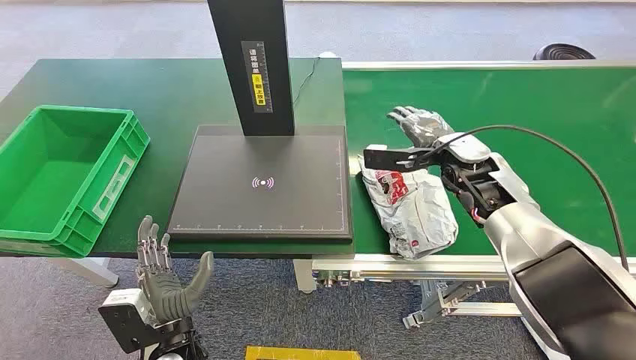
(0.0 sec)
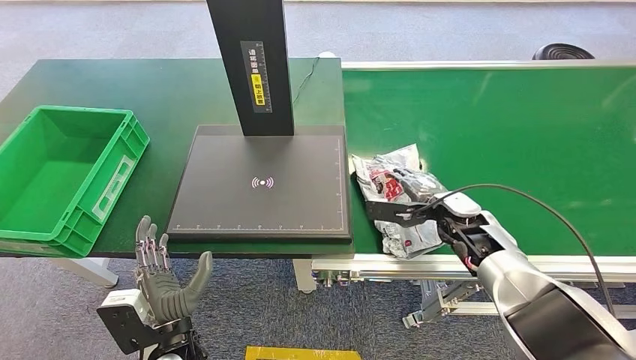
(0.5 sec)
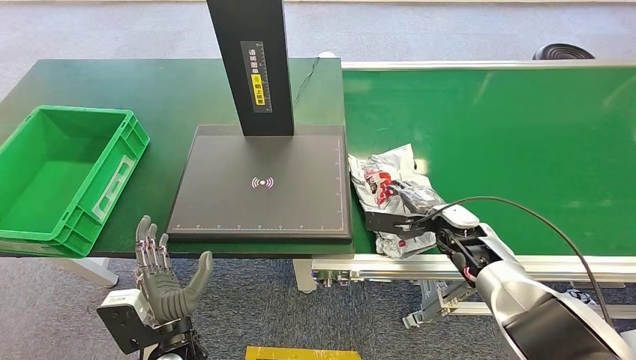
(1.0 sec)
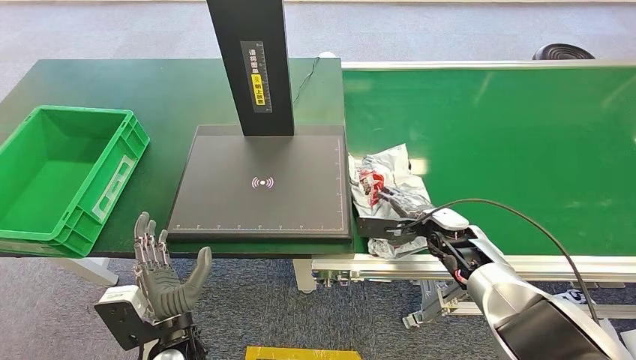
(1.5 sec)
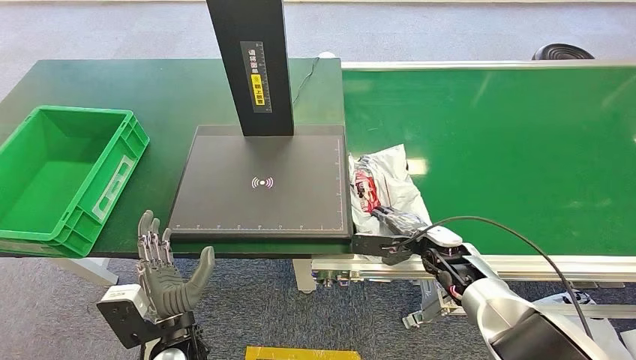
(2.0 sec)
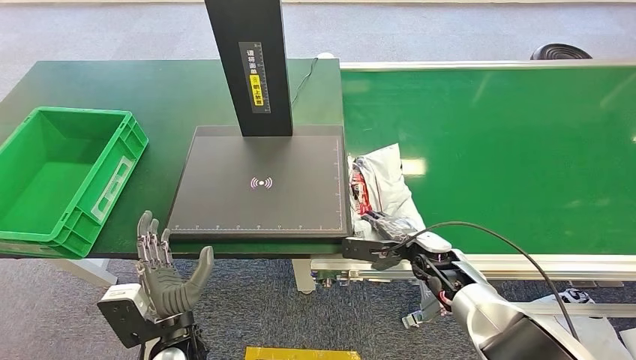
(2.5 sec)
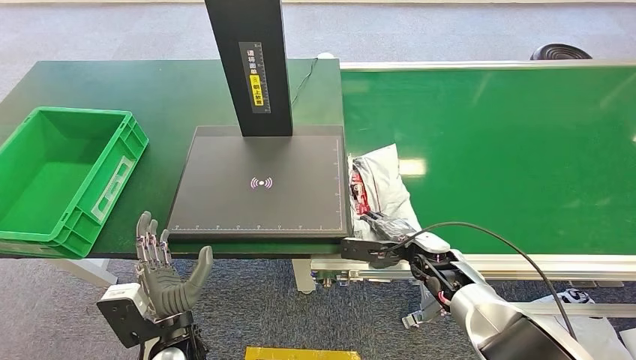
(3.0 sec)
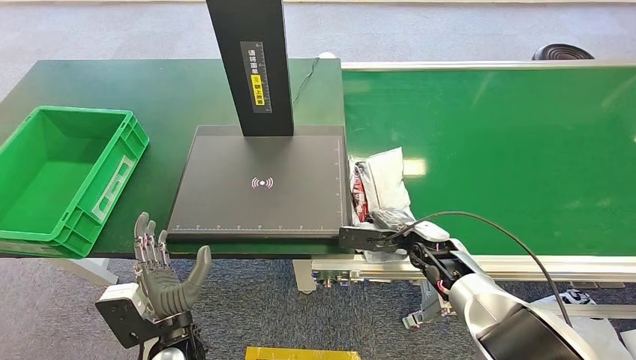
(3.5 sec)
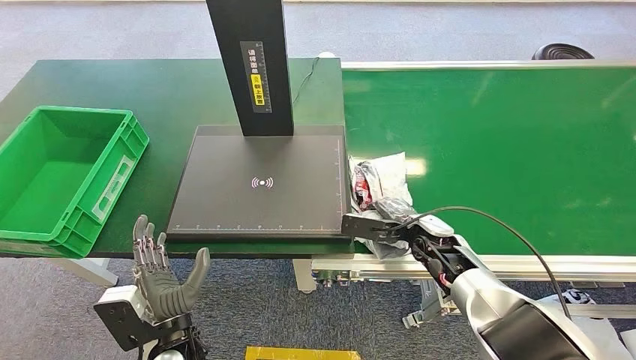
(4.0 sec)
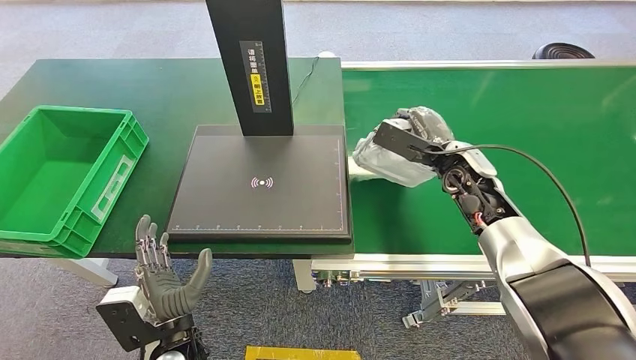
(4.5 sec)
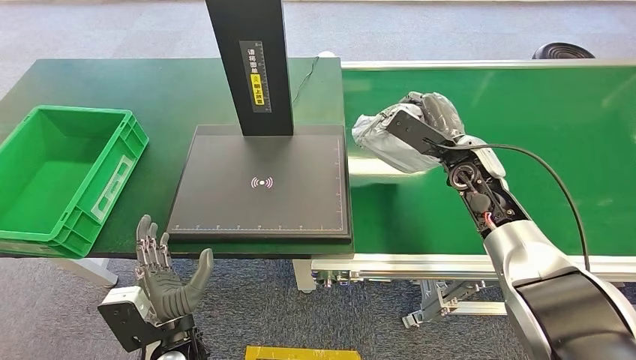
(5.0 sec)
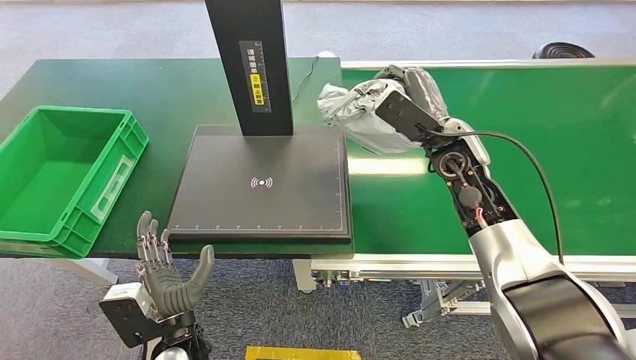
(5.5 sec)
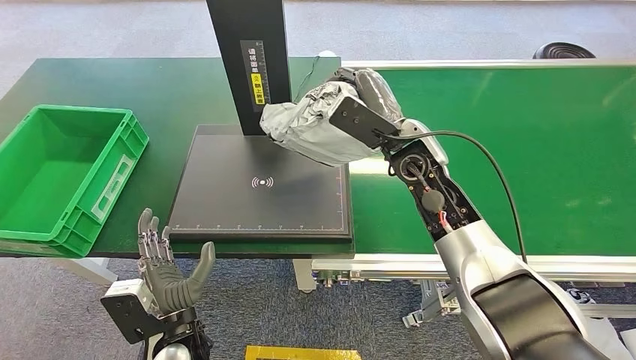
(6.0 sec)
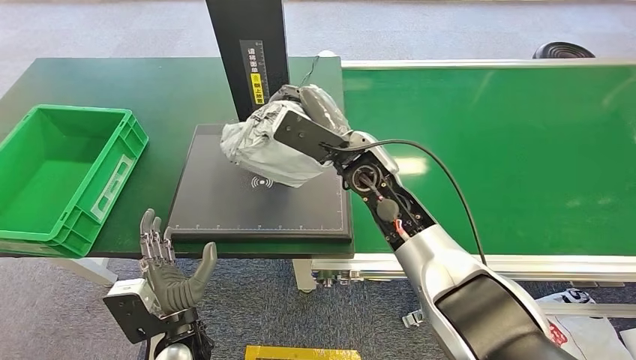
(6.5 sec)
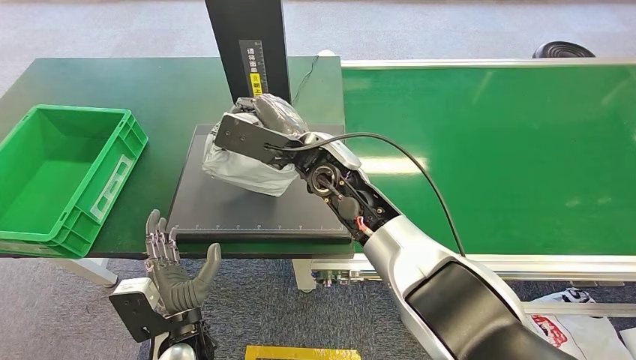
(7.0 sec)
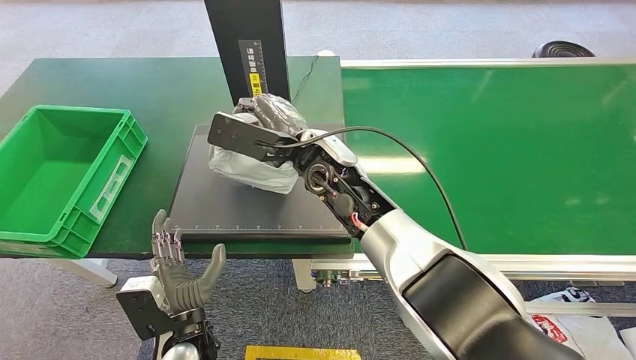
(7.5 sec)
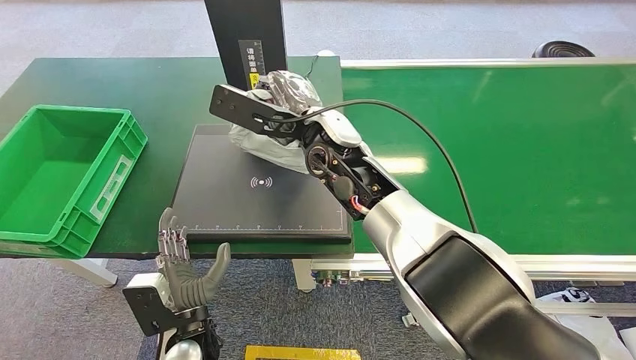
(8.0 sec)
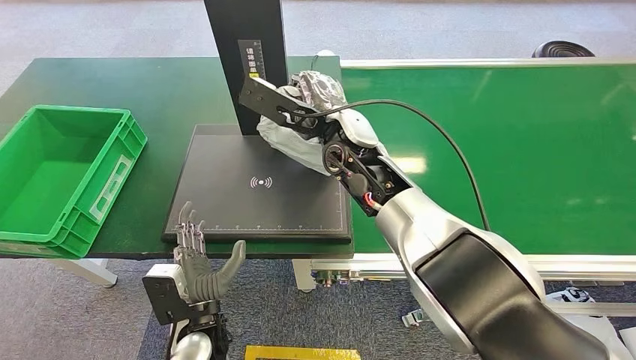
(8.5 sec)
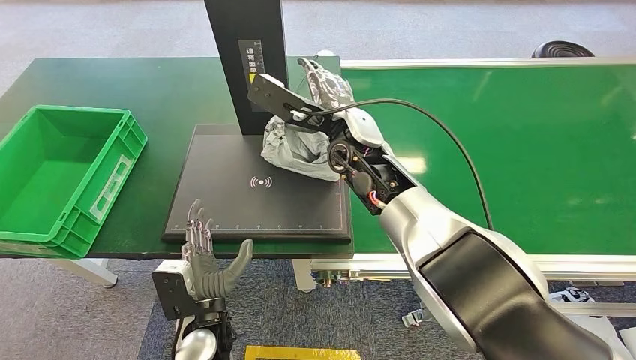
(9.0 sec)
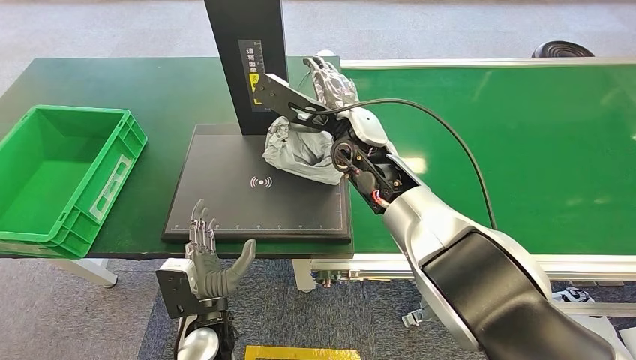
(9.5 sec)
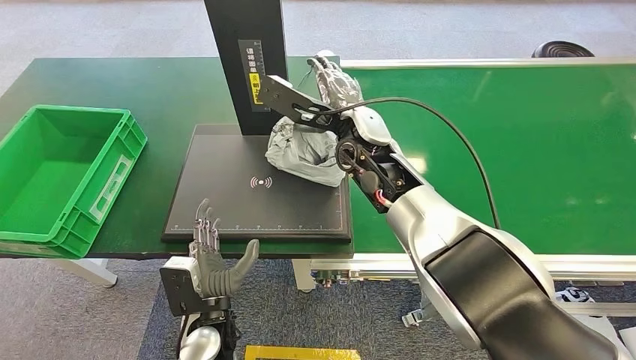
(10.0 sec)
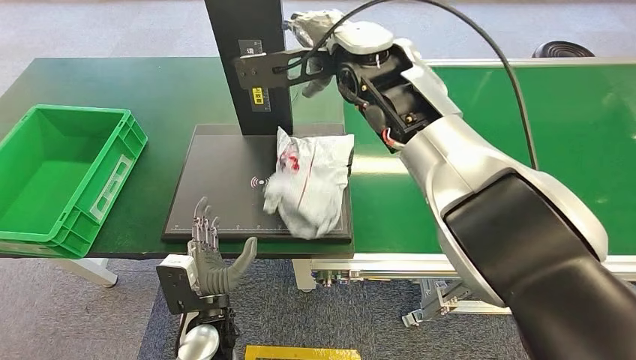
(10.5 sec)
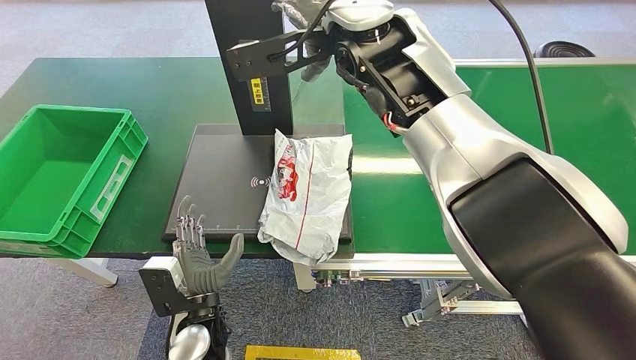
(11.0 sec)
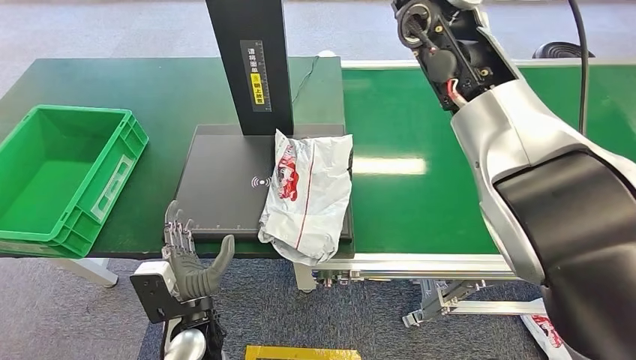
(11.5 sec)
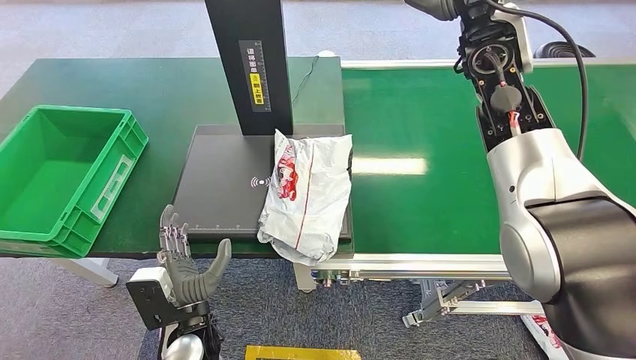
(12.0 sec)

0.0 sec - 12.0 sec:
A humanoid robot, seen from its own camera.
Step, 0.0 sec - 5.0 sec: Pick up the package from the conveyor belt.
Step, 5.5 sec - 11.5 sec: Place the package onto the inbound machine.
2.0 sec - 4.0 sec: The hands move only a little.
4.0 sec - 6.0 sec: The right hand moves upward and to the left, about 20 cm.
8.0 sec - 10.0 sec: The right hand moves to the right, some 5 cm.

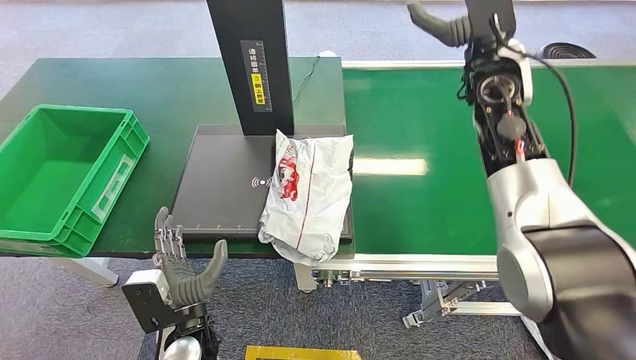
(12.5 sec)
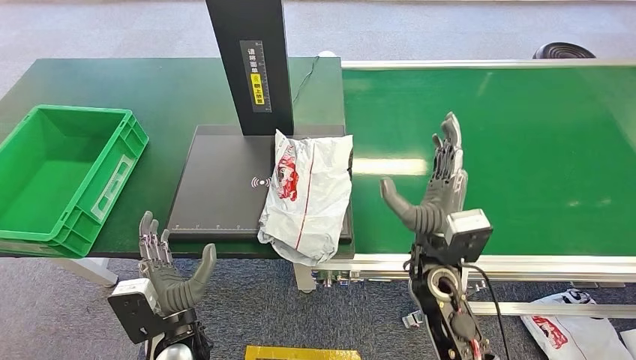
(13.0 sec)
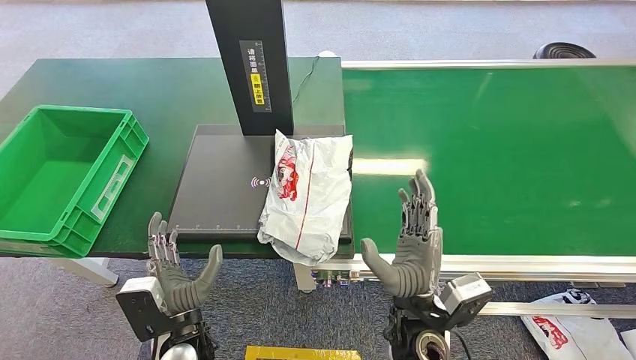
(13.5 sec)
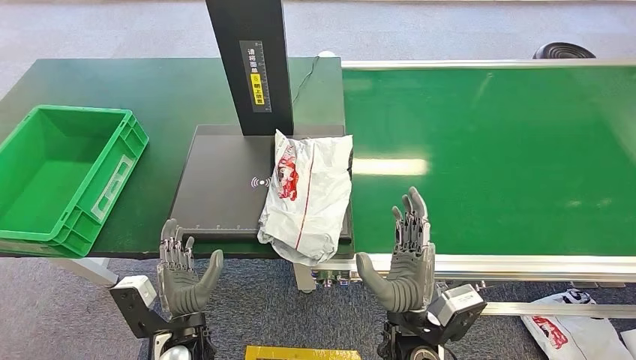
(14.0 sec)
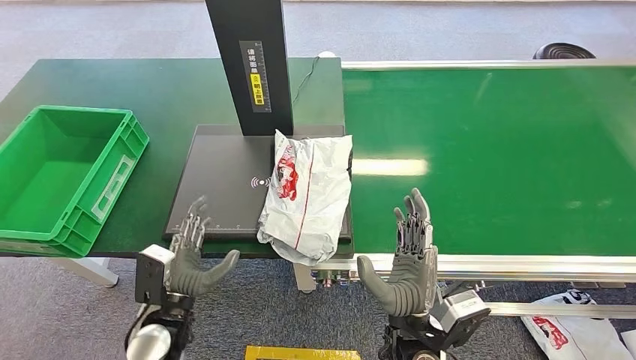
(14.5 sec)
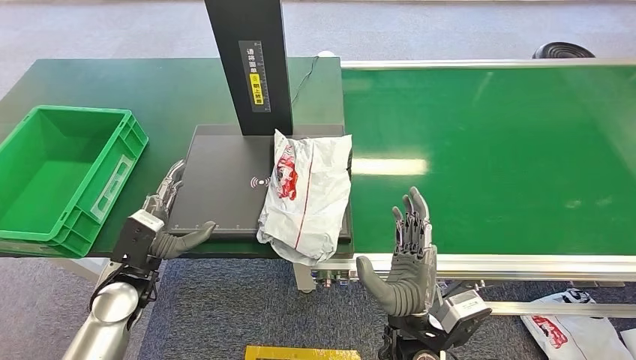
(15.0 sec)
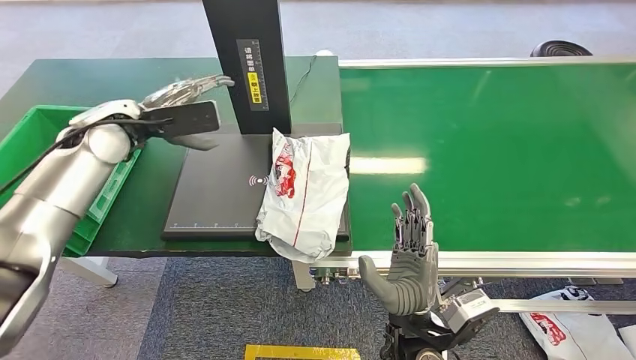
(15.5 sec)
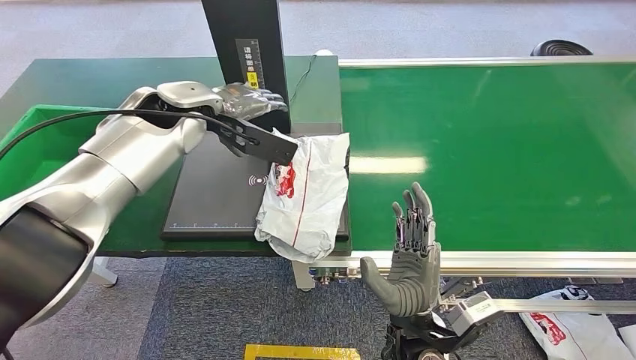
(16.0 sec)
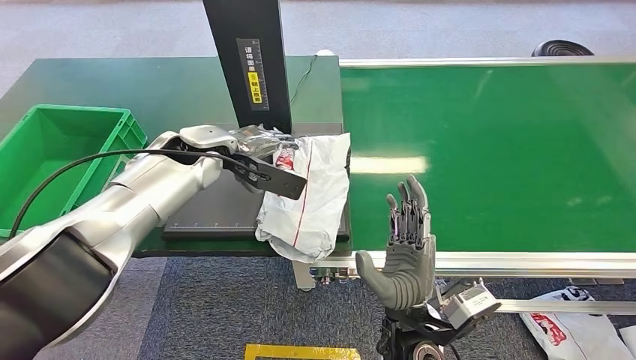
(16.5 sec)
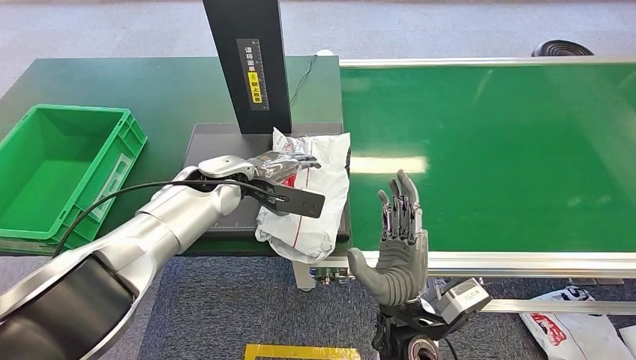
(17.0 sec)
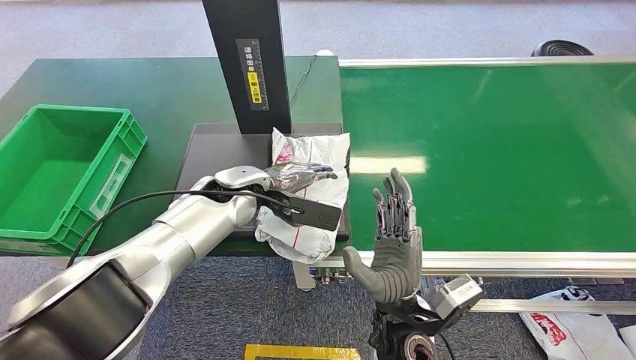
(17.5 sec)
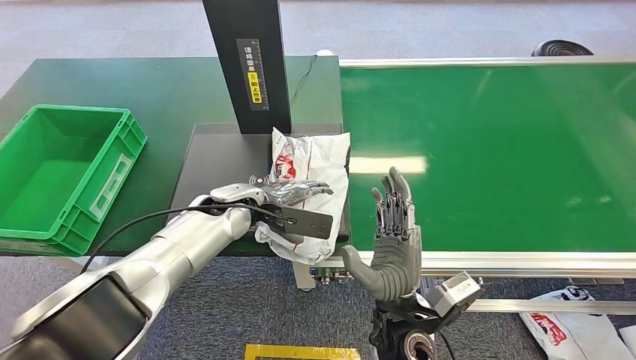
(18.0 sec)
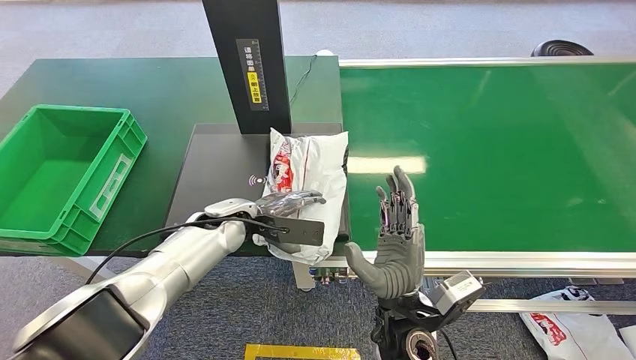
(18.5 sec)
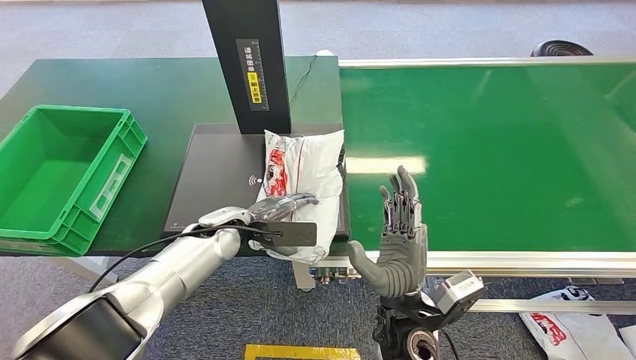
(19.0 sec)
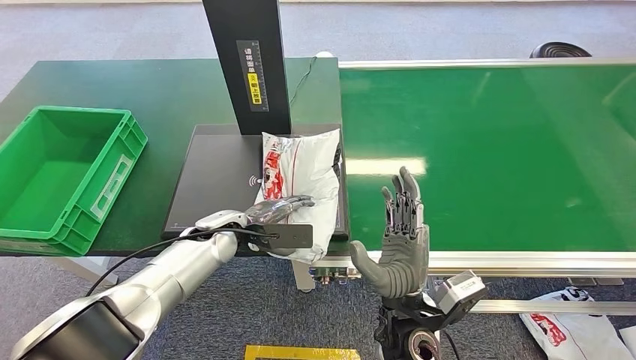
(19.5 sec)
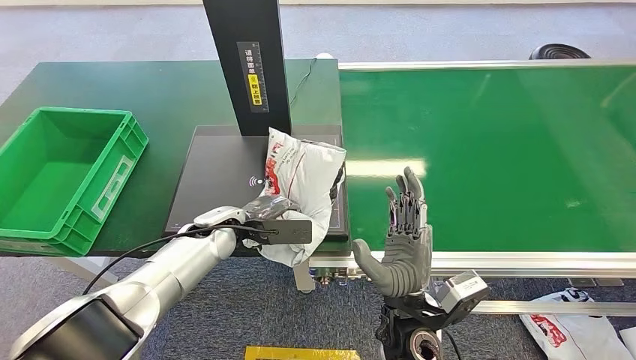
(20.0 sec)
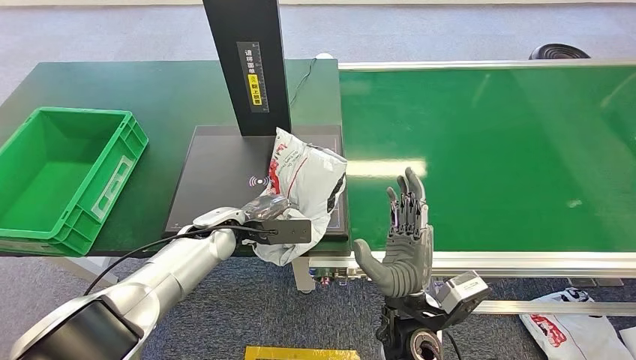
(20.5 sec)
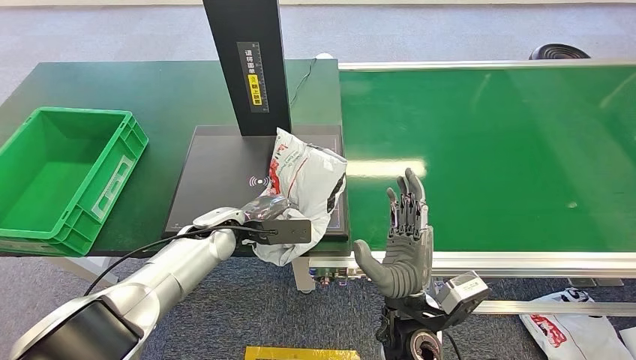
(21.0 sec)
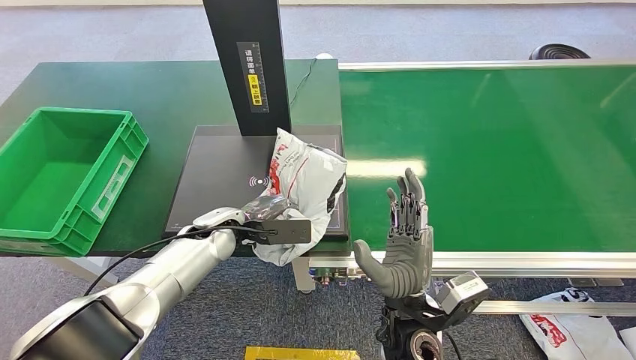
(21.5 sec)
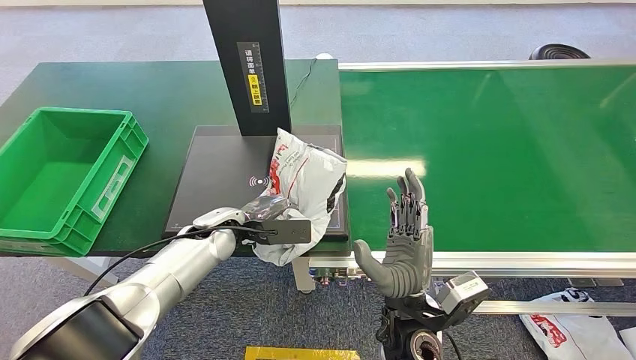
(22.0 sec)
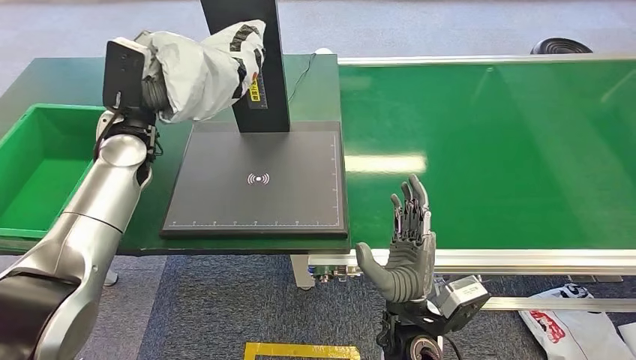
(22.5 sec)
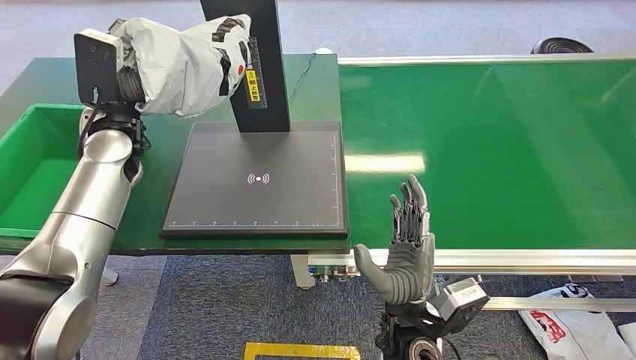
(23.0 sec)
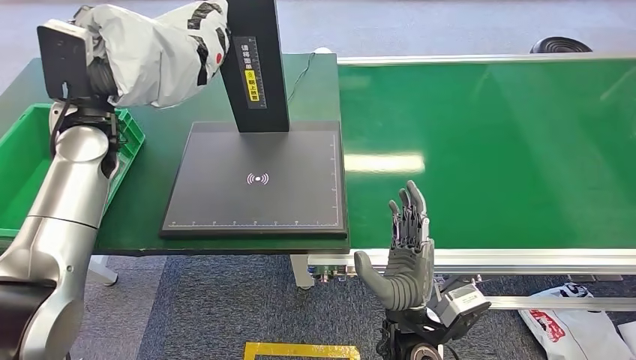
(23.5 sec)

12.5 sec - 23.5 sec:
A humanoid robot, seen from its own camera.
Step, 14.5 sec - 22.5 sec: Pick up the package from the inbound machine.
20.0 sec - 21.5 sec: Both hands stay put.
